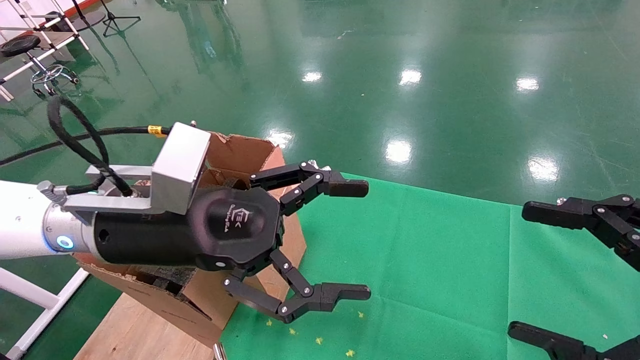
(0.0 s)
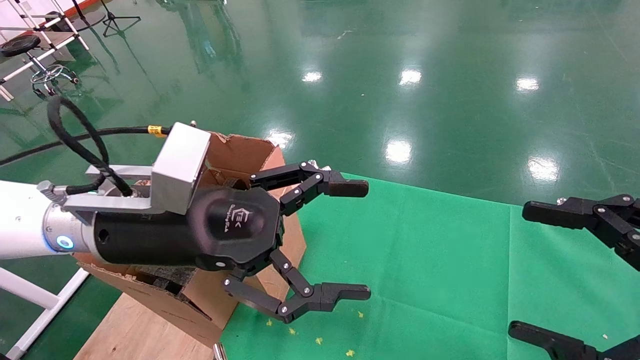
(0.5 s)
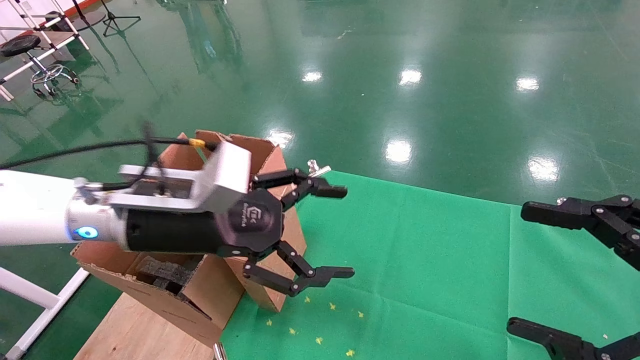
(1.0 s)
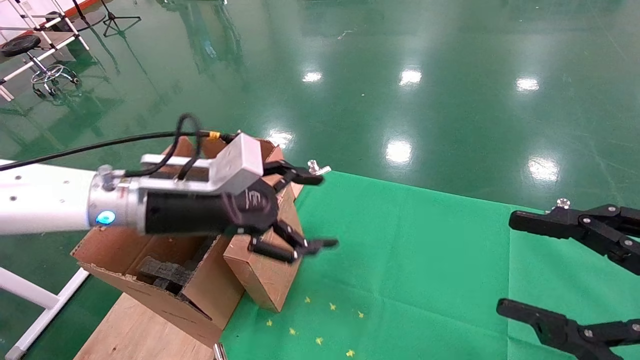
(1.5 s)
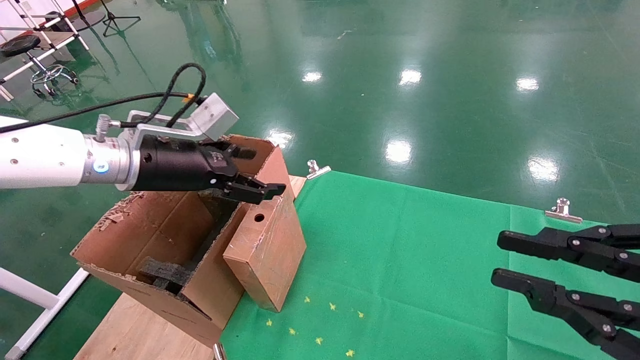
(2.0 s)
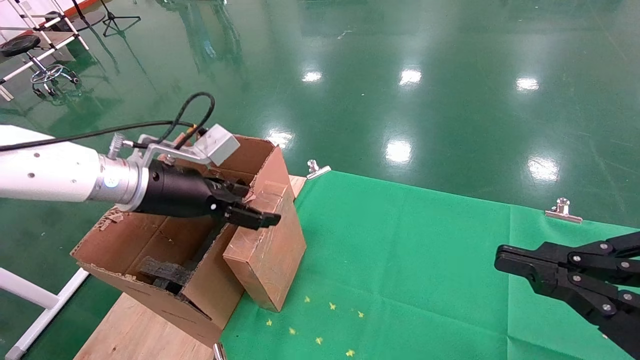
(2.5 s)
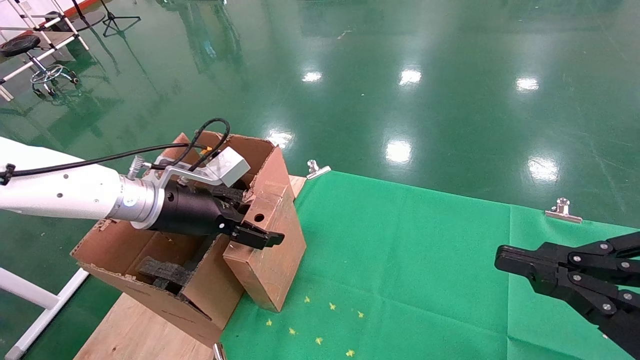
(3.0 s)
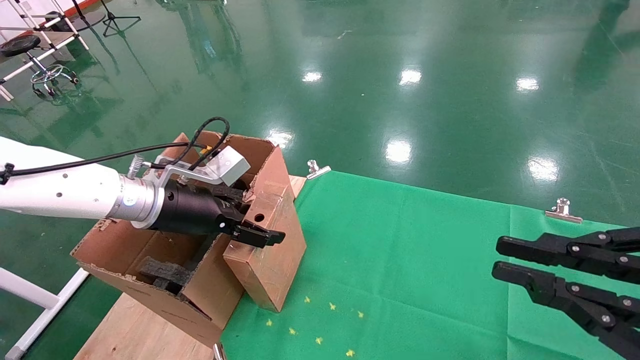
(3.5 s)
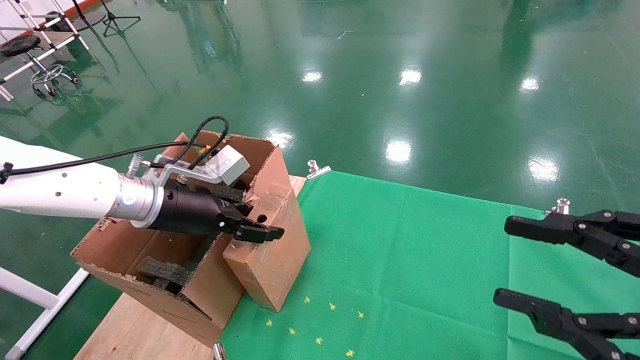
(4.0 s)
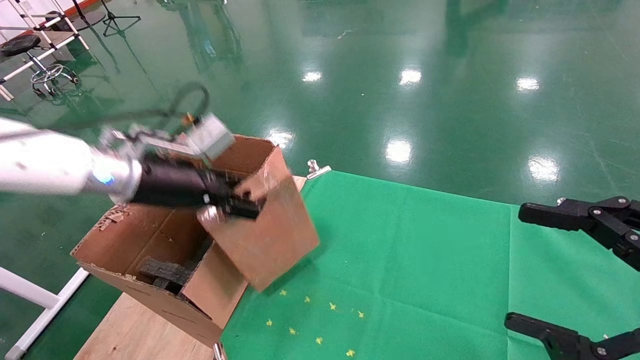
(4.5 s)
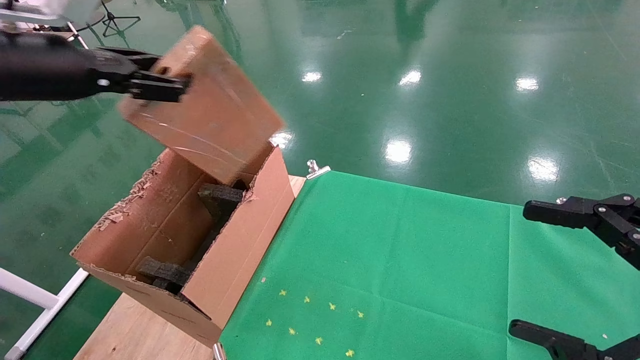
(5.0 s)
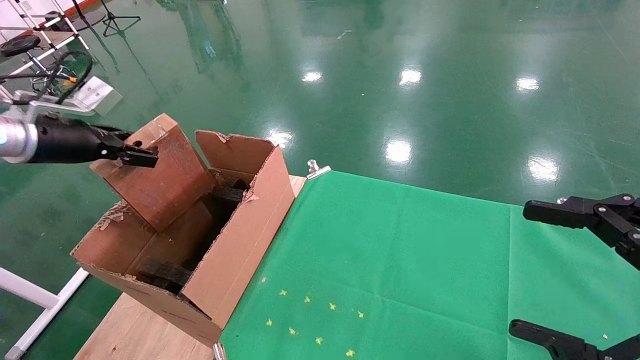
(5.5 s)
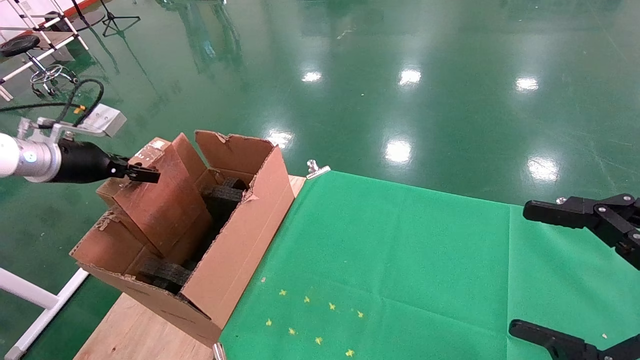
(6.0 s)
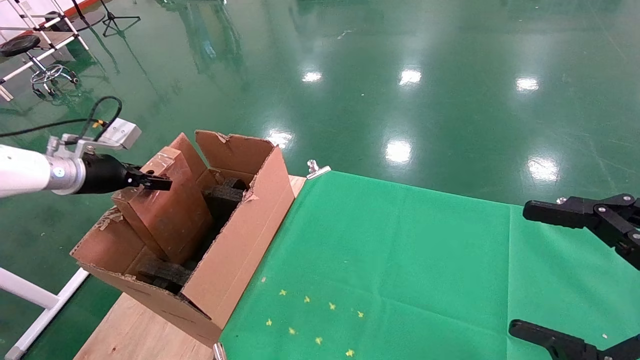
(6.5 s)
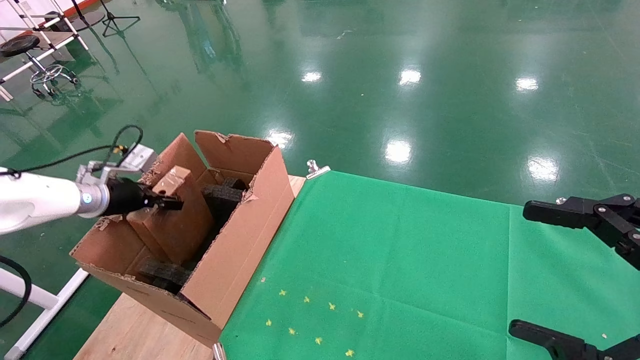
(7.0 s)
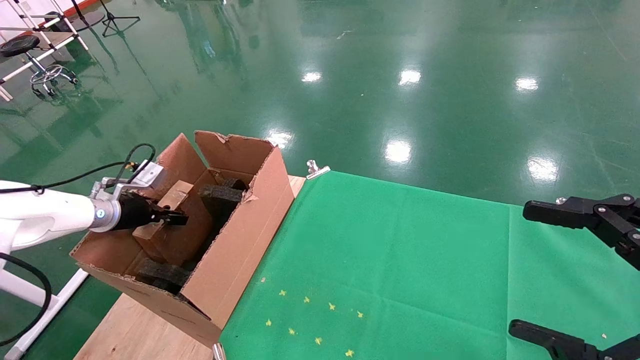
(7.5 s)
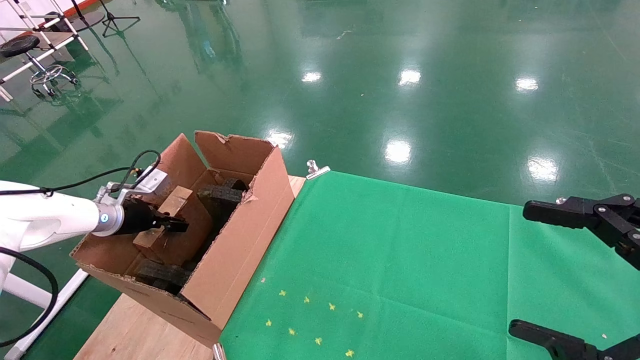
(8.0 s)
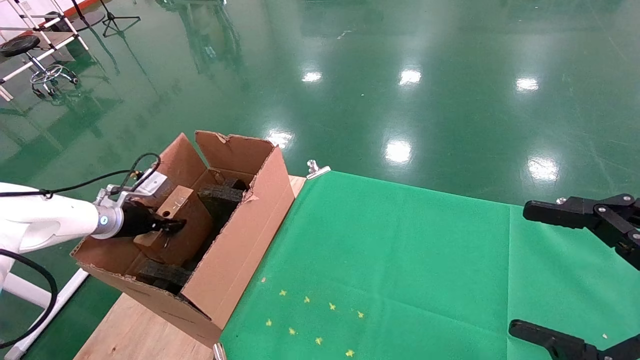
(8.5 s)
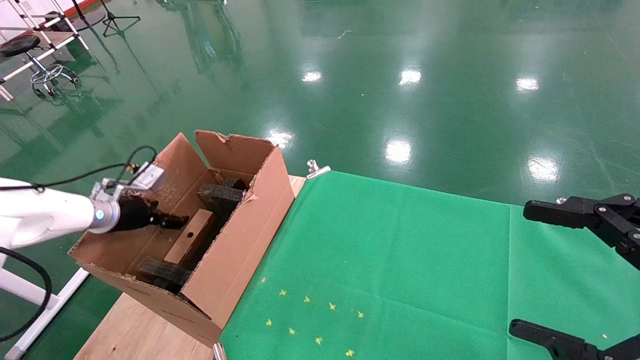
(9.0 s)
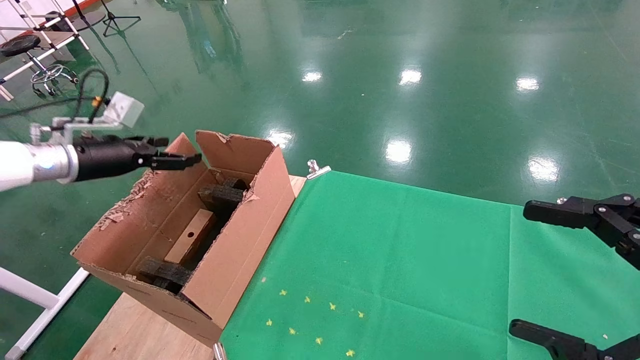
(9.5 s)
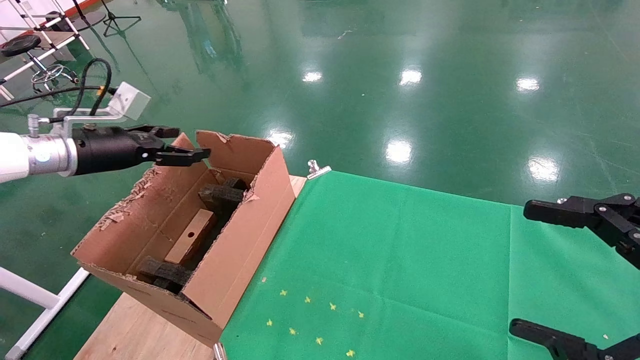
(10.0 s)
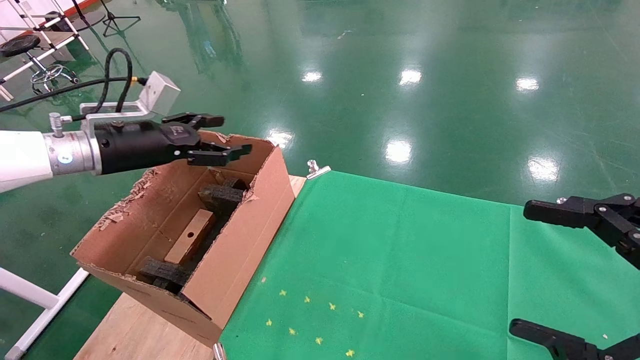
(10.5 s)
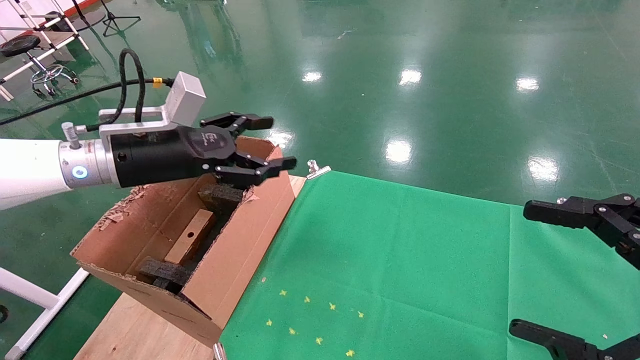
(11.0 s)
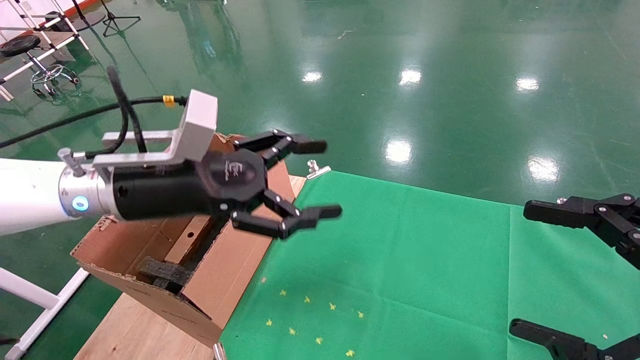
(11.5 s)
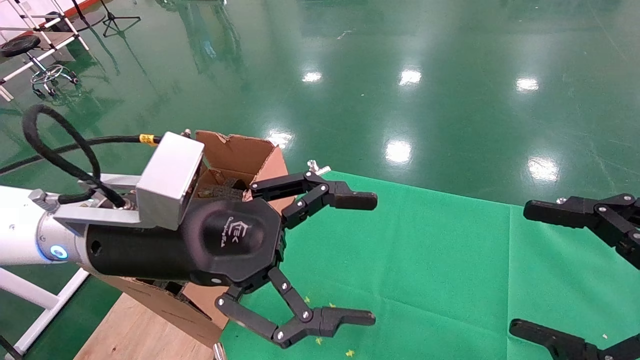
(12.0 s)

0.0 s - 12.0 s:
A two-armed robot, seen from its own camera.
Task of the whole recording: using a robotic arm to pick up a cardboard box and palace it the carton.
Step, 1.0 s - 4.0 s: Pick up the mouse and the power cord paper box.
Step, 4.5 s - 9.5 s: Place the mouse and the power cord paper box into the container.
0.0 s - 2.0 s: The right gripper closes its fingers. The left gripper heads forward and to the left, covering some 10 cm.
2.0 s - 4.0 s: The left gripper moves approximately 5 cm, and closes up.
4.0 s - 6.0 s: The right gripper opens. The left gripper travels to the left by some 20 cm, and closes up.
6.0 s - 8.0 s: The left gripper is displaced downward by roughly 15 cm.
8.0 s - 10.0 s: The left gripper is displaced upward by some 15 cm, and opens its fingers.
10.0 s - 12.0 s: The left gripper travels to the right and backward by roughly 30 cm.

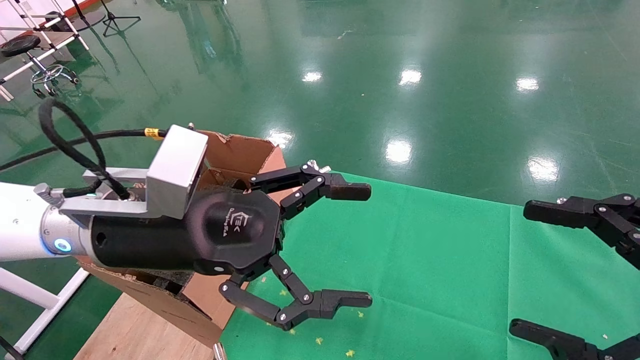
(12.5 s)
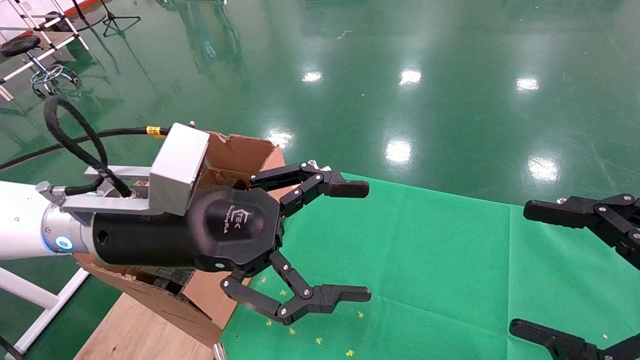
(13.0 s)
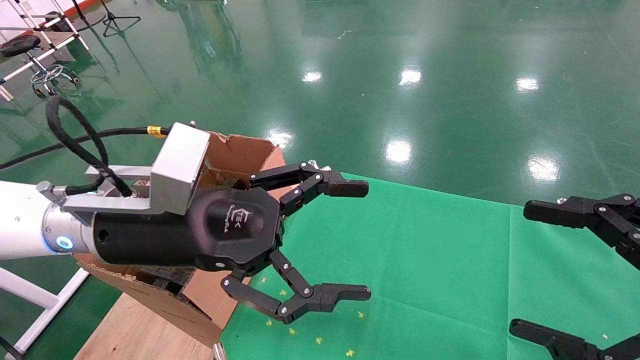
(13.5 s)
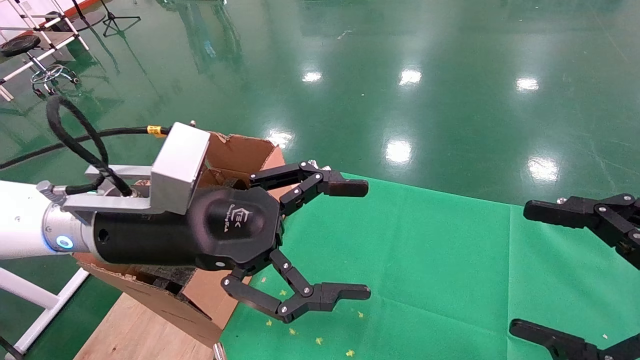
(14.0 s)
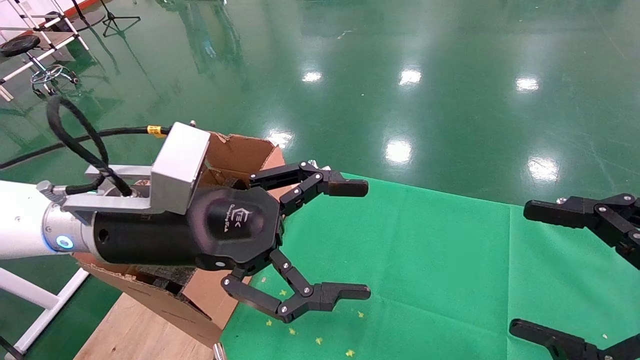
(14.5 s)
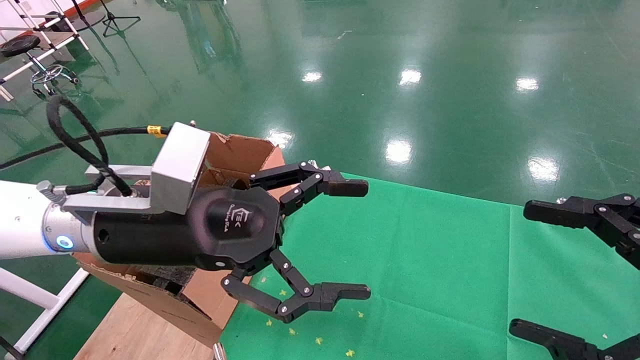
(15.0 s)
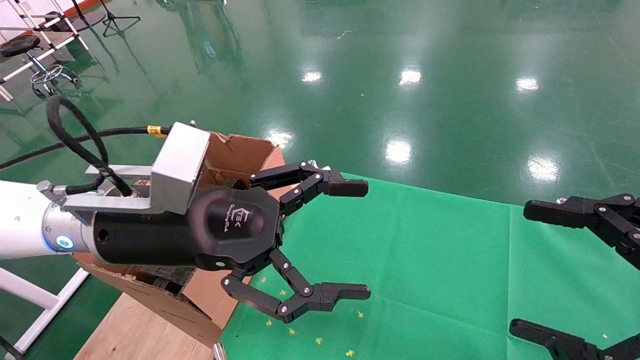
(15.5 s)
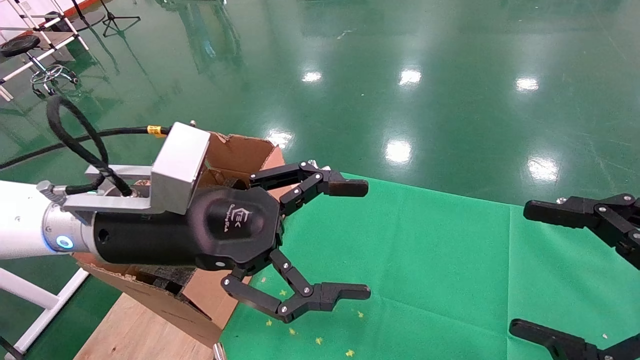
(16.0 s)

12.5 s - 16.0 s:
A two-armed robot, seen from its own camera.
Task of the whole recording: using a robotic arm to pick up a cardboard box and palace it the carton.
12.5 s - 16.0 s: Both grippers stay put.

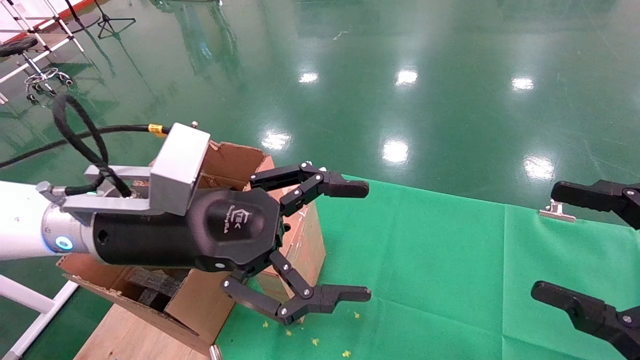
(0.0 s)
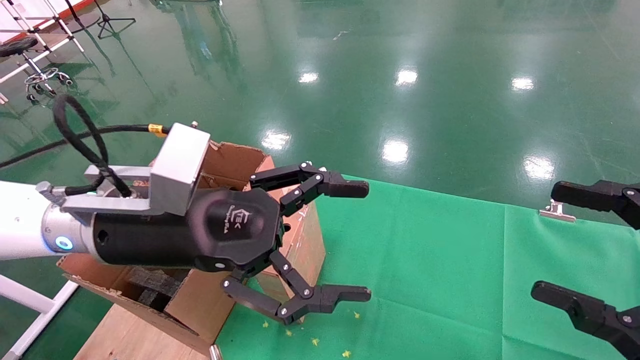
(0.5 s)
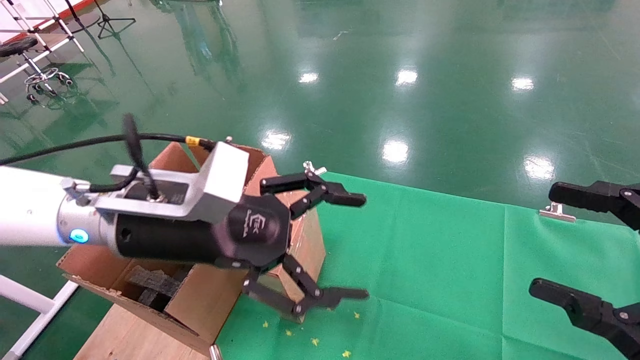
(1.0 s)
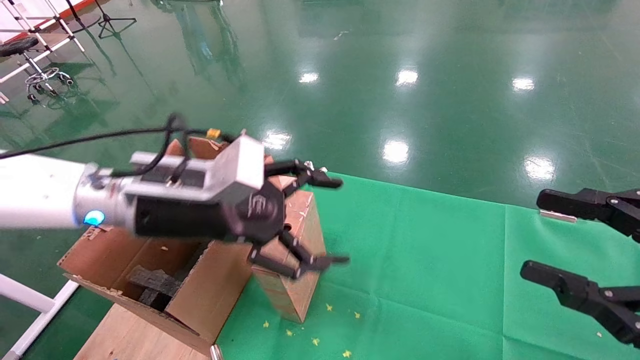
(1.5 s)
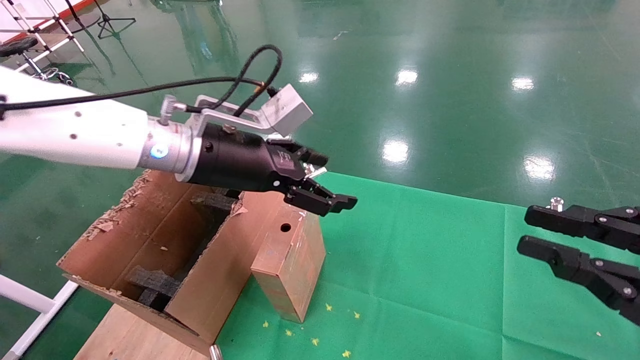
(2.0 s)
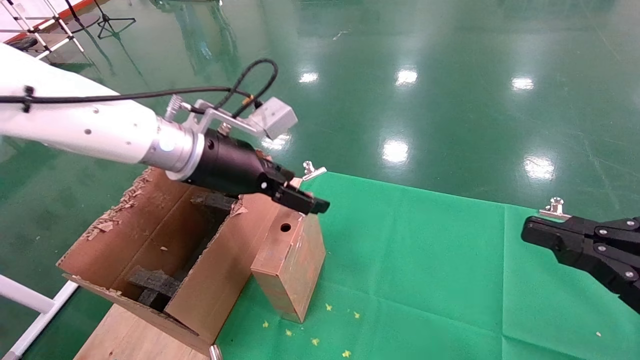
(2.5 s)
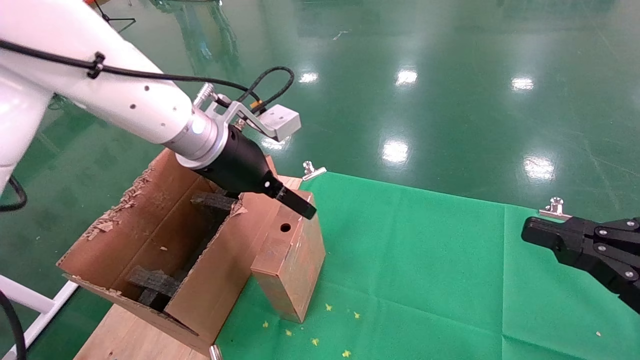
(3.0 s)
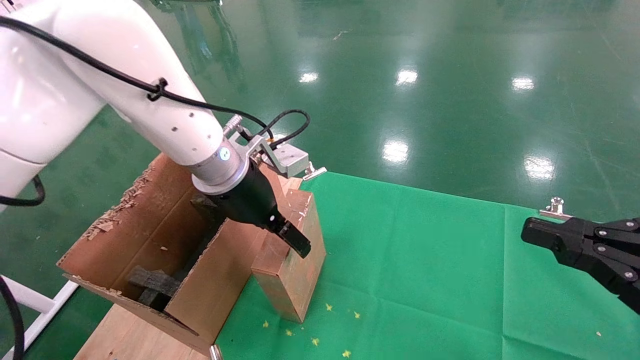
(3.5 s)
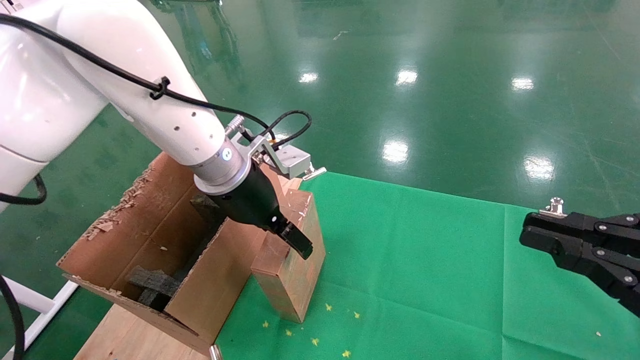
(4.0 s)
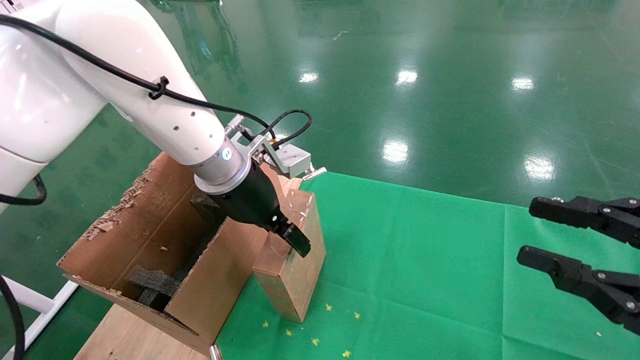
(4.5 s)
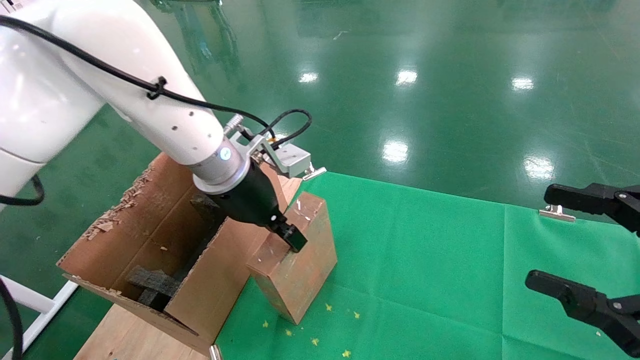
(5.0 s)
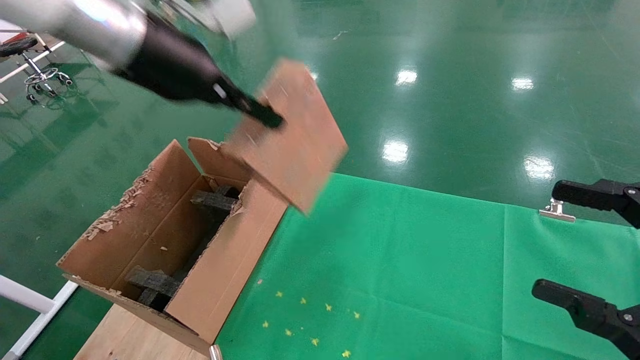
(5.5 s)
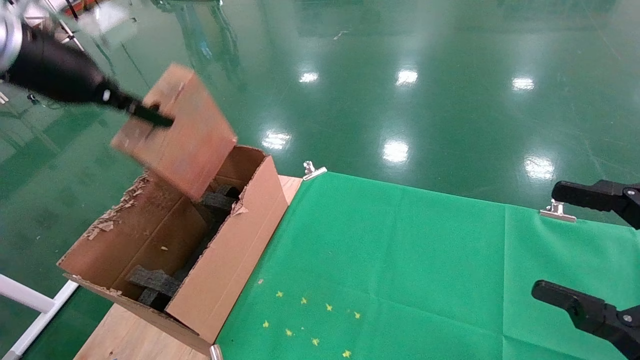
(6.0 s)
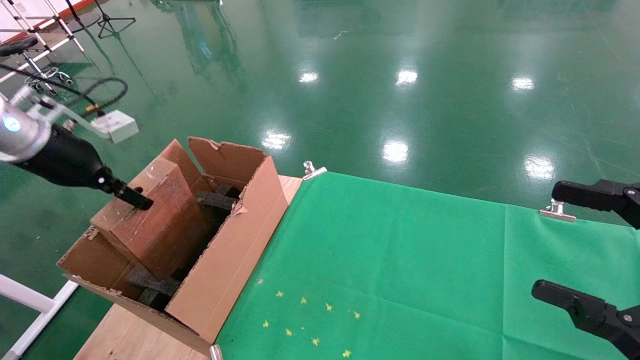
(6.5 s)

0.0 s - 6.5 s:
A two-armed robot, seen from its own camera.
Task of the whole recording: using a robotic arm to pick up a cardboard box and palace it the carton.
Step, 1.0 s - 4.5 s: Pick up the mouse and the power cord paper box.
0.0 s - 2.0 s: The right gripper closes. Meanwhile the left gripper moves forward, about 10 cm.
4.5 s - 6.5 s: The right gripper opens up. Meanwhile the left gripper moves to the left, some 25 cm, and closes.
